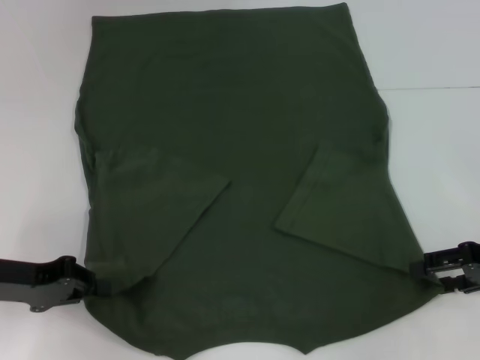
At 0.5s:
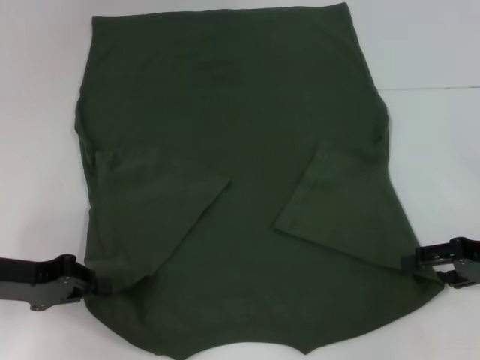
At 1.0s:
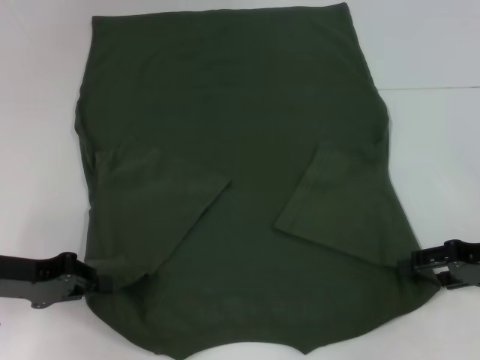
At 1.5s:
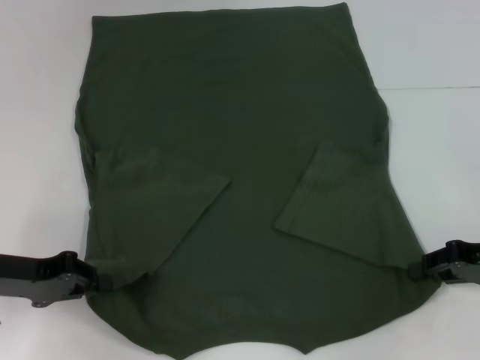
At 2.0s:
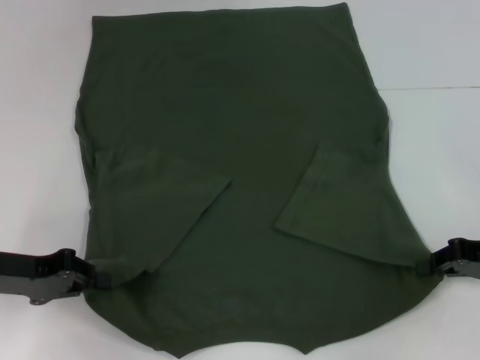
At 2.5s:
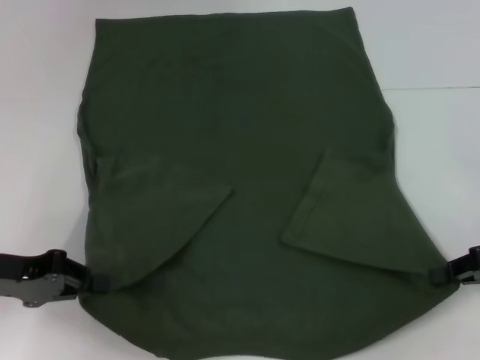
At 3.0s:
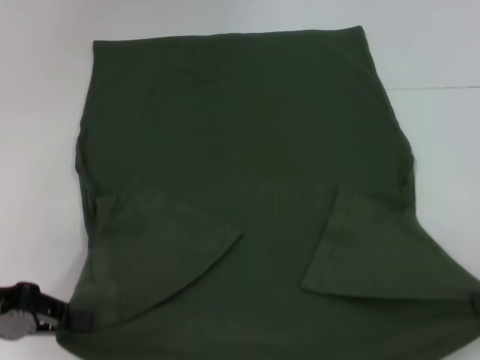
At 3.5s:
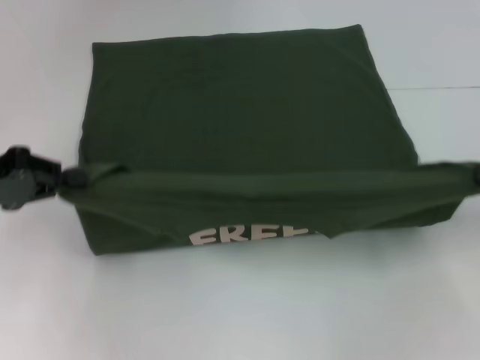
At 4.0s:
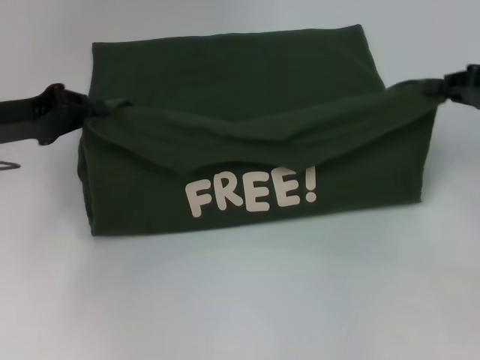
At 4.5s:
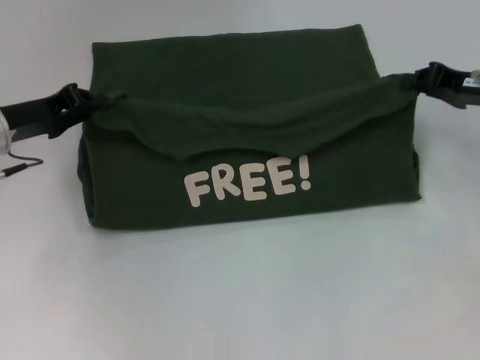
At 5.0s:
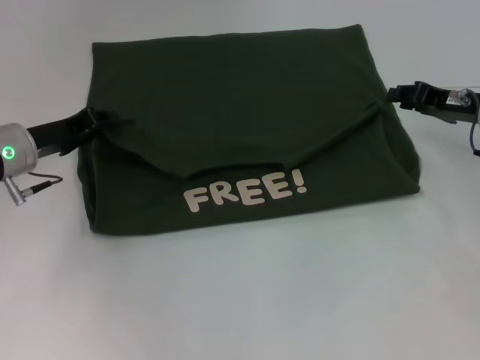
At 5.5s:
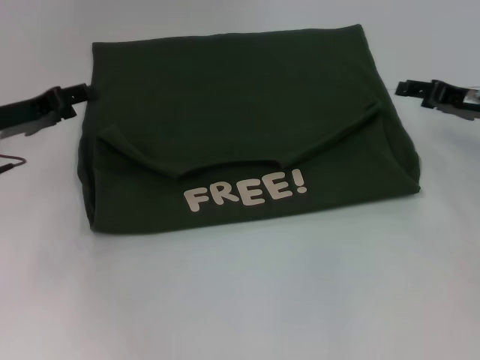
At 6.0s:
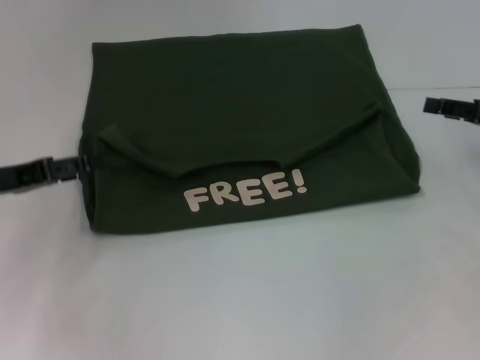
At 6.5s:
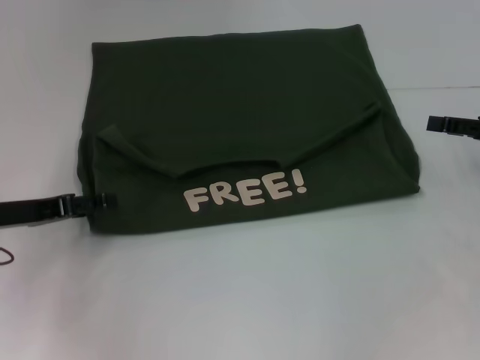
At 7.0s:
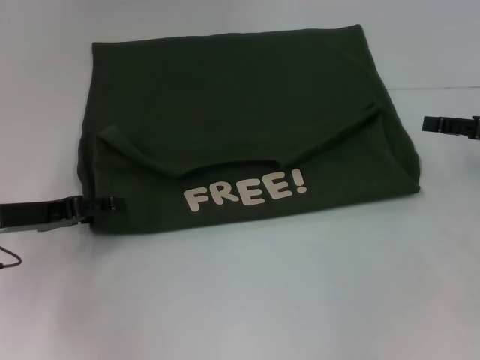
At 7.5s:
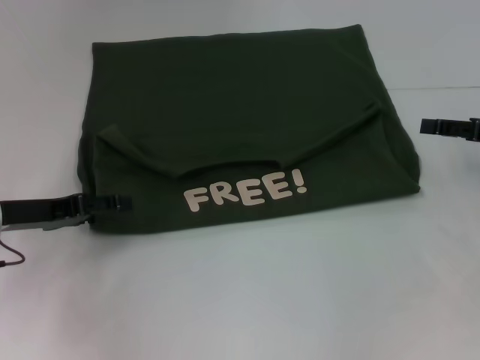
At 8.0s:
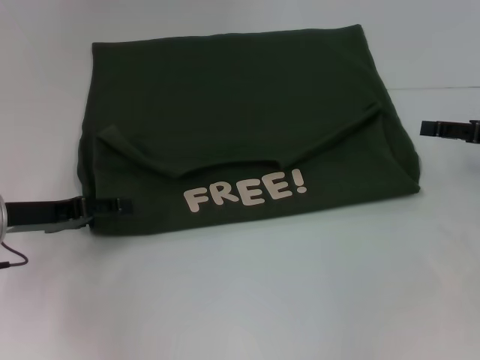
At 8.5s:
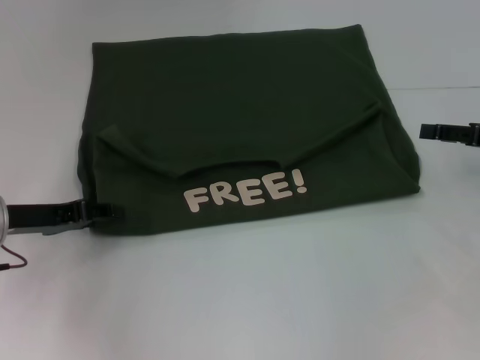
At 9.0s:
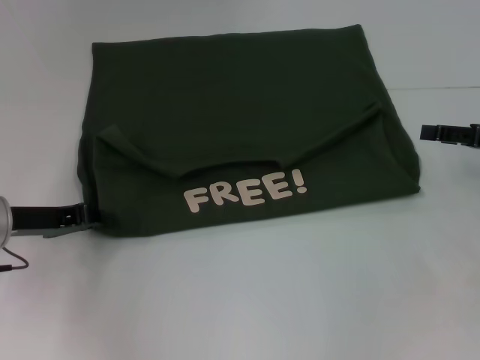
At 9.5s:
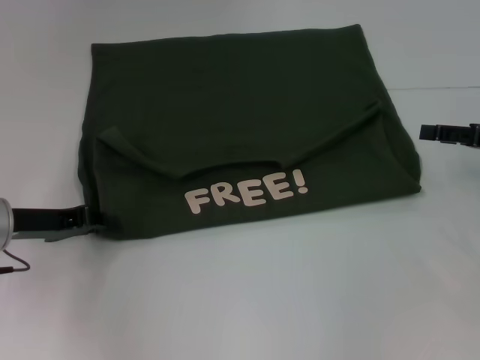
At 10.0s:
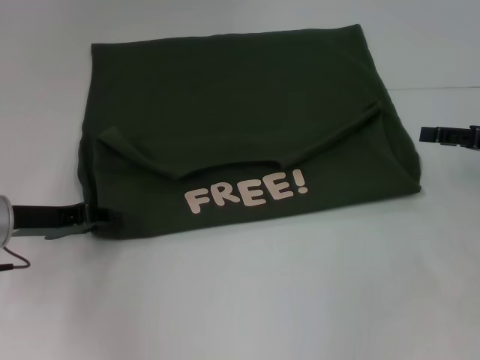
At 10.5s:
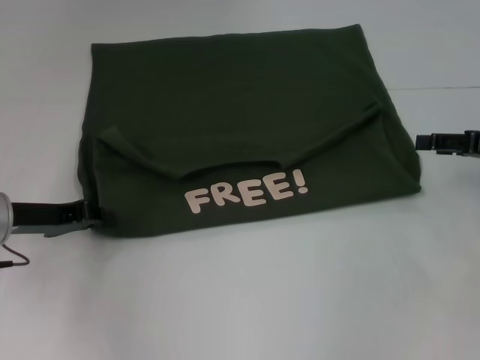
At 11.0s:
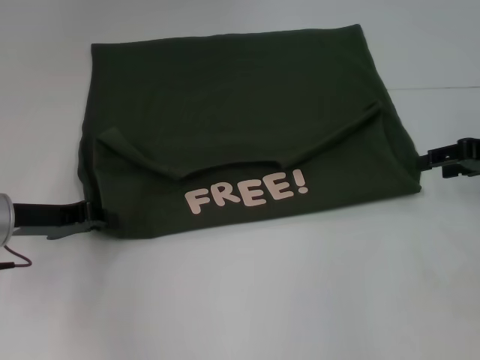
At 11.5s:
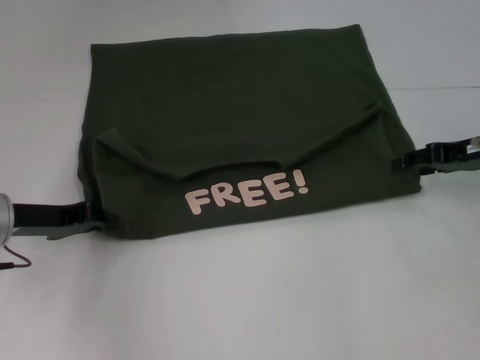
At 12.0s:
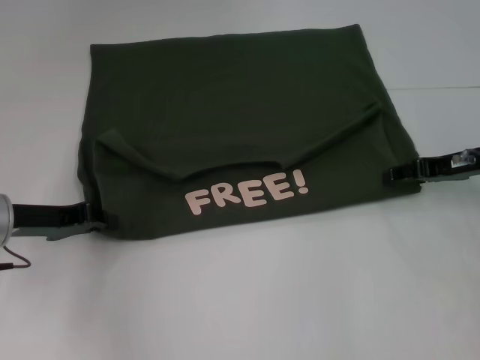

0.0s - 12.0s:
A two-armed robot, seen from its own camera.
Step, 0.0s - 2.0s: Grab the bottom right corner with your right hand.
Step, 2.5s - 5.0s: Fold the clothes with your left hand.
Step, 2.5s - 5.0s: Fold the clothes with your right hand.
0.0s - 2.0s: The right gripper closes up.
2.0s - 4.0s: The right gripper moves upward and forward, approximately 10 cm; the left gripper heads forward and upward, covering roughly 10 cm.
4.0s - 6.0s: The right gripper opens its fingers. Meanwhile the left gripper shifts by approximately 5 cm, and opens up.
6.0s - 8.0s: There are only small adjustments of the grippers.
8.0s - 10.0s: The left gripper closes.
10.0s - 12.0s: The right gripper heads to the left, covering approximately 5 cm.

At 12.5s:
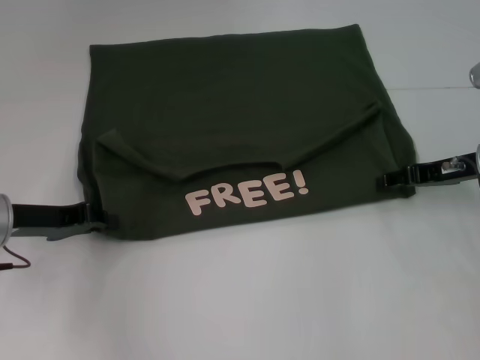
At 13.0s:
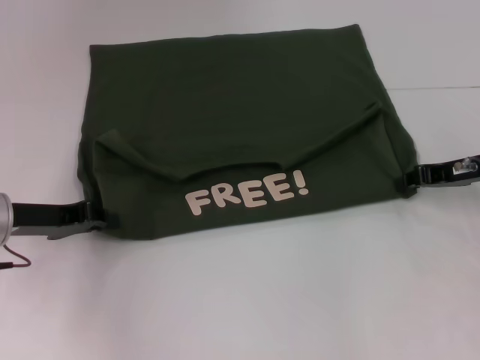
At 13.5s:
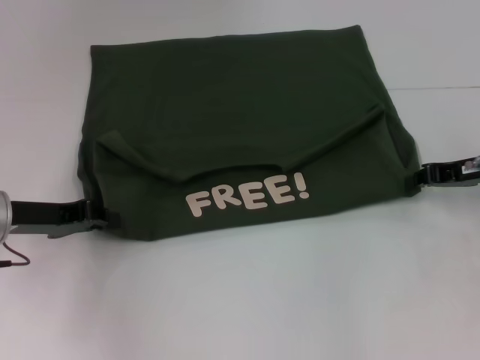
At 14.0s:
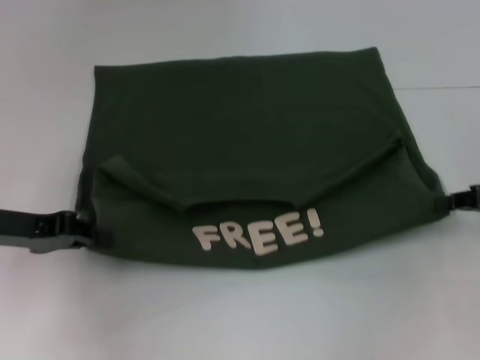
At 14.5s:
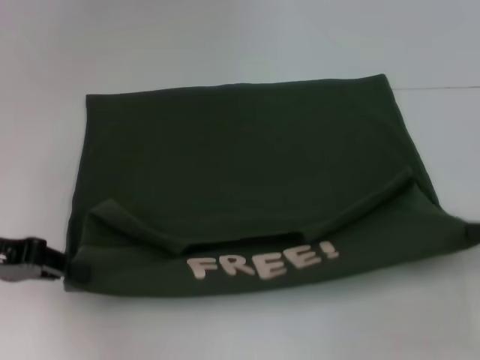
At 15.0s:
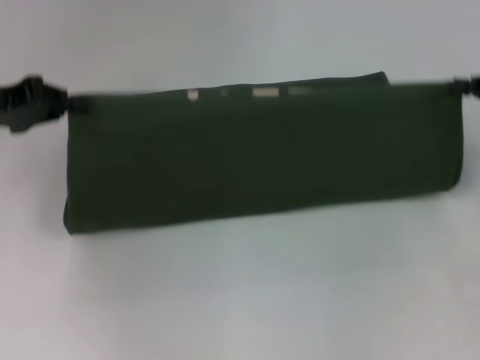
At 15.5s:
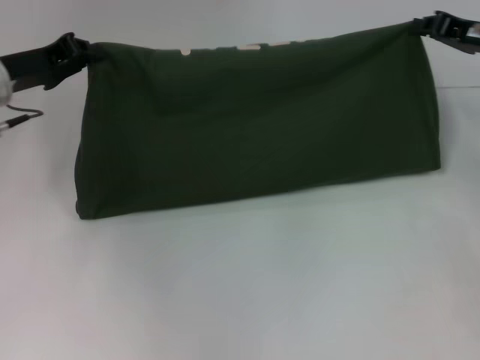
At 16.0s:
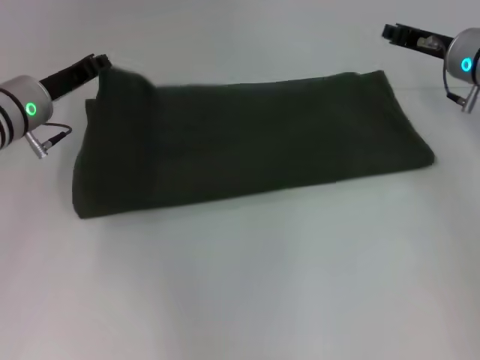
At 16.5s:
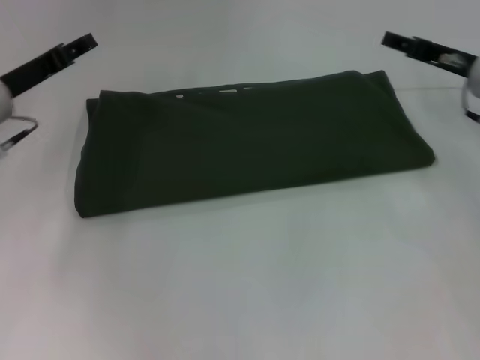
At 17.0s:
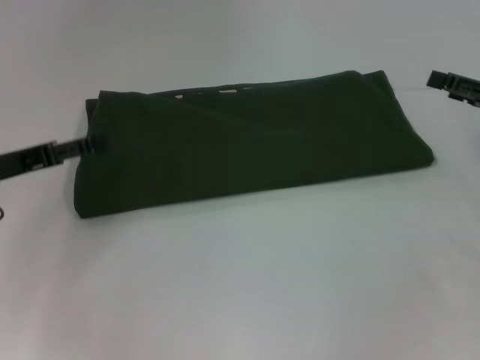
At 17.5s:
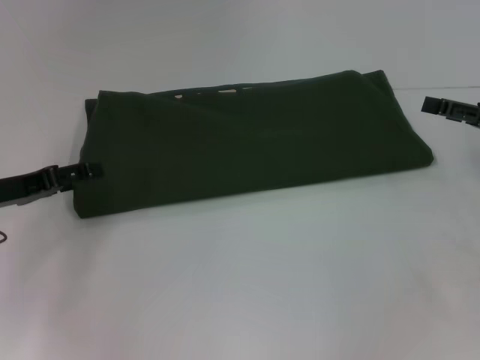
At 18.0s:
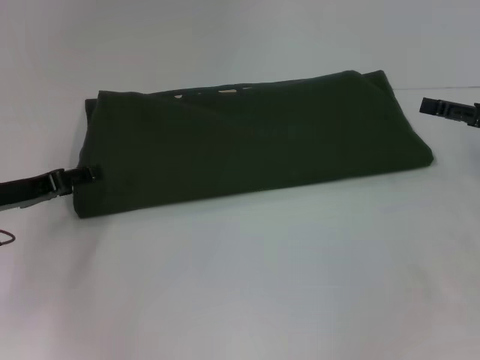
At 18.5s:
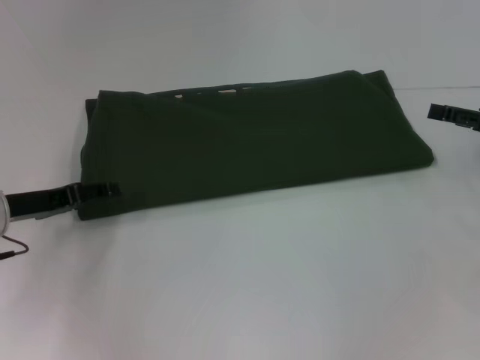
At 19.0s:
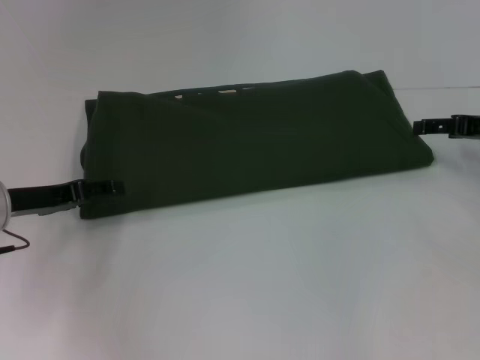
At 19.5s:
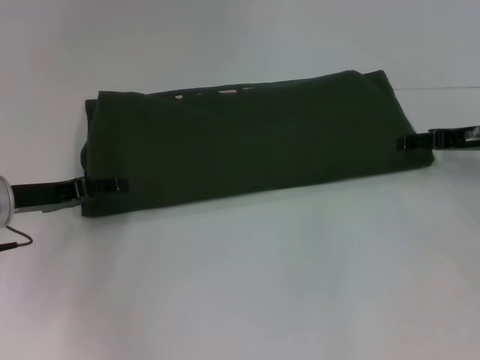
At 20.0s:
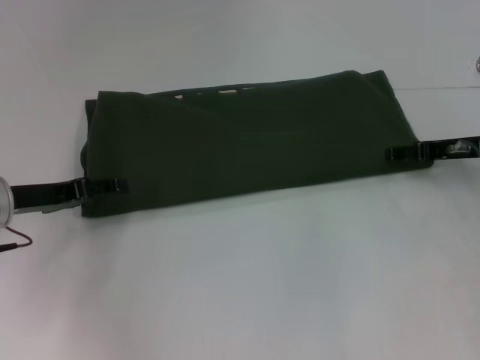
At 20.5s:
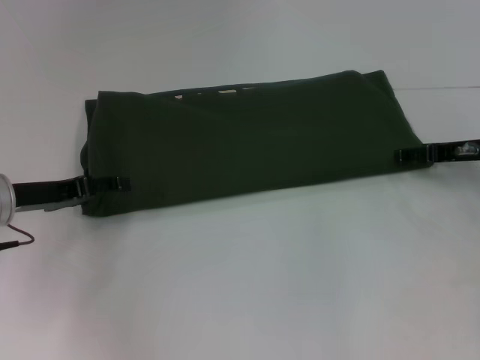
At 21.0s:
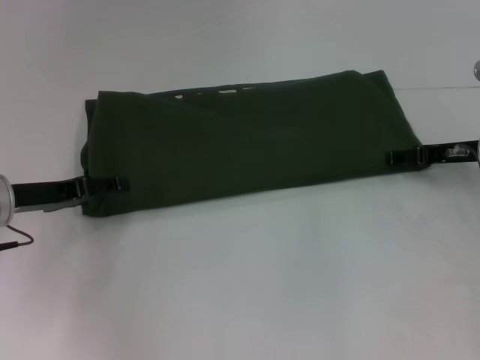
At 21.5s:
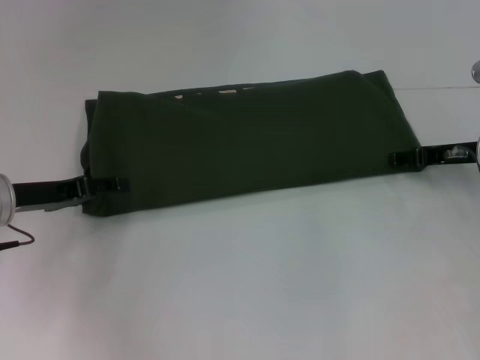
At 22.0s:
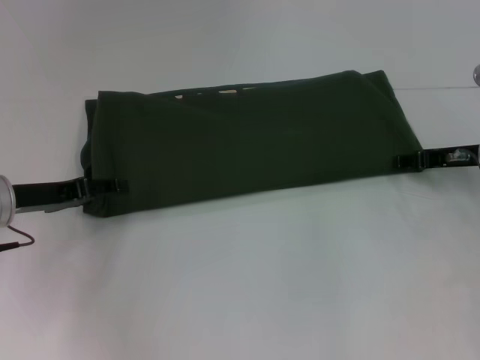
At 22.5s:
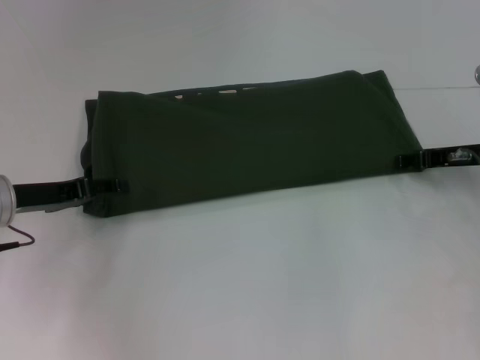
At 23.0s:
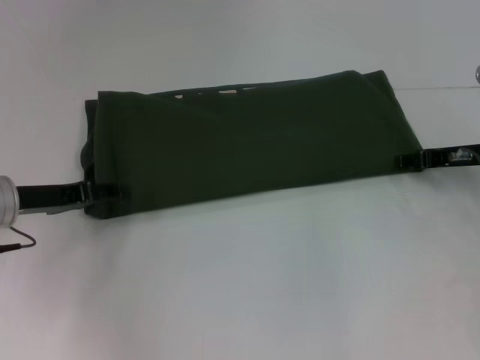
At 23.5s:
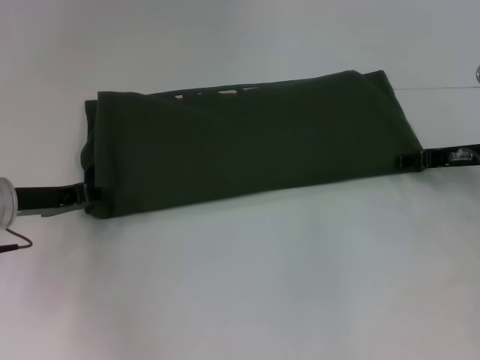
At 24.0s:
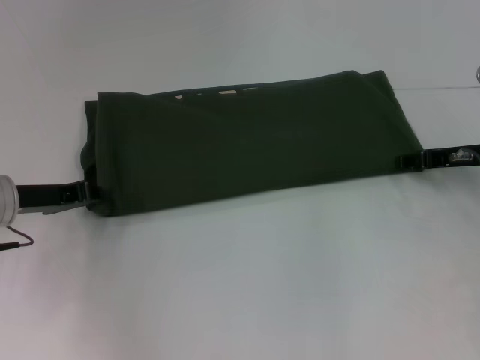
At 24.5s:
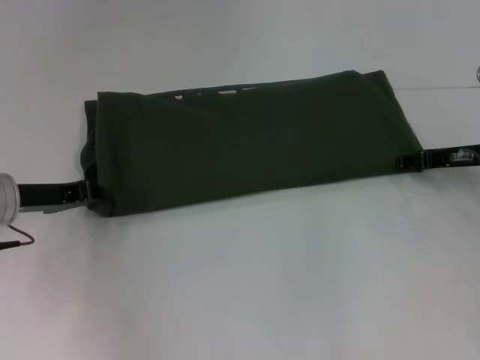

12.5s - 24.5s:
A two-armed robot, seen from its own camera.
Step, 14.5s - 16.0s: Fold the clothes with your left hand.
Step, 14.5s - 16.0s: Fold the clothes with your right hand.
12.5s - 14.5s: The left gripper travels upward by some 5 cm; the right gripper shifts about 15 cm backward and to the right, and closes up.
14.5s - 16.5s: The right gripper travels forward and to the left by approximately 20 cm, and opens. Meanwhile the left gripper moves forward, about 10 cm, and opens.
16.5s - 18.5s: The left gripper is displaced backward and downward by approximately 10 cm, and opens its fingers; the right gripper shifts about 10 cm to the right and backward, and opens up.
18.5s - 20.5s: The right gripper travels to the left by approximately 5 cm.
20.5s - 22.5s: Neither gripper changes place.
22.5s - 24.5s: The left gripper closes up.

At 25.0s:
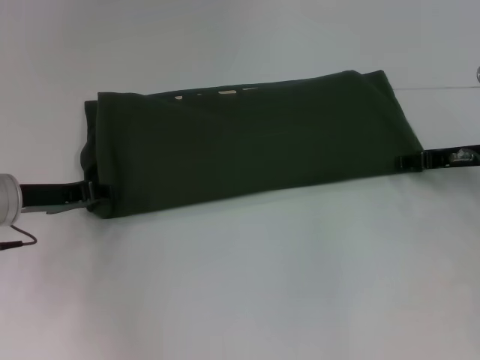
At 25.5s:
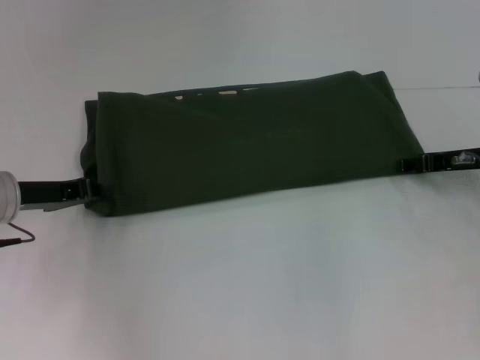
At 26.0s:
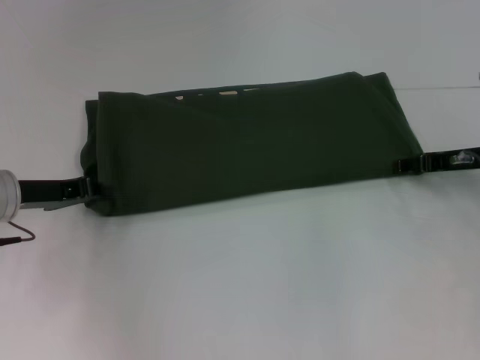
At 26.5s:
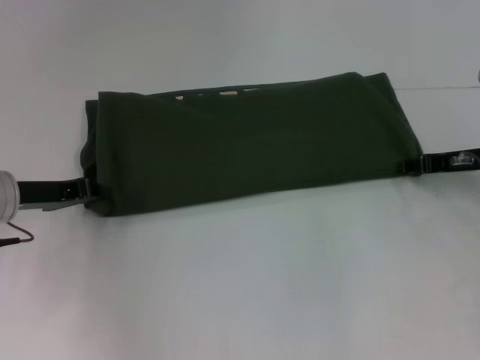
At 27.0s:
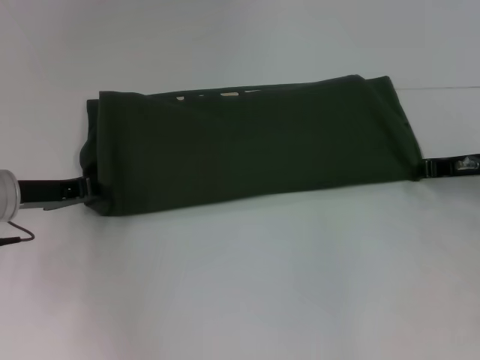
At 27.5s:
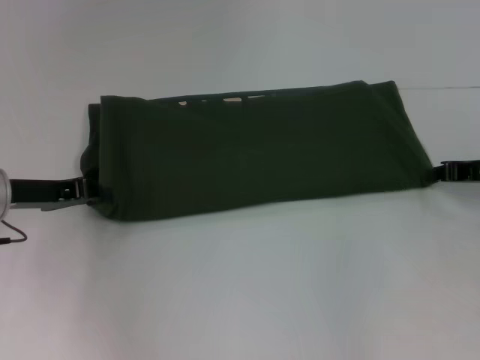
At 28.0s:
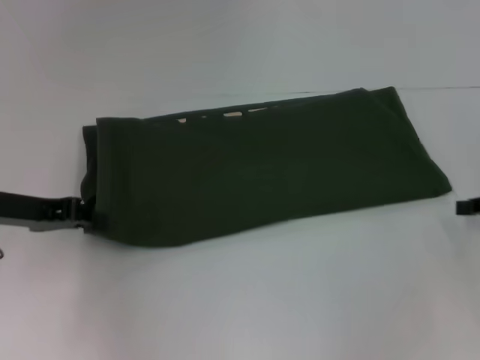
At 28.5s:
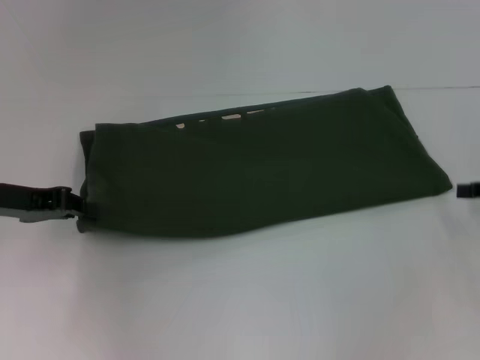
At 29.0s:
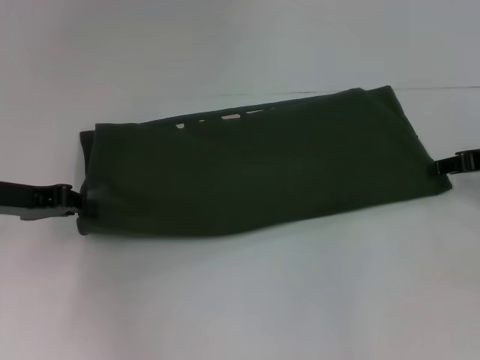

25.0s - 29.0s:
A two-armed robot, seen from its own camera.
25.0s - 27.0s: The right gripper closes up.
27.0s - 29.0s: The right gripper moves about 10 cm backward and comes back.
